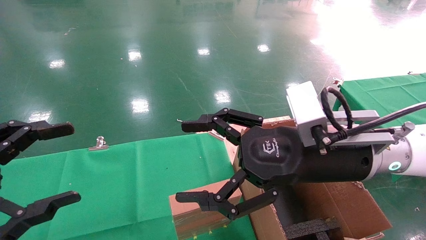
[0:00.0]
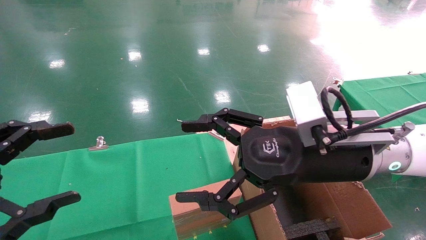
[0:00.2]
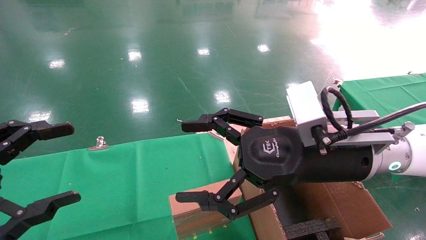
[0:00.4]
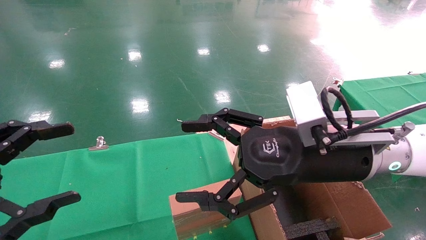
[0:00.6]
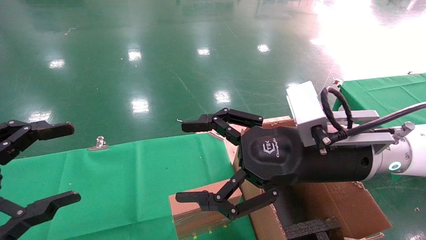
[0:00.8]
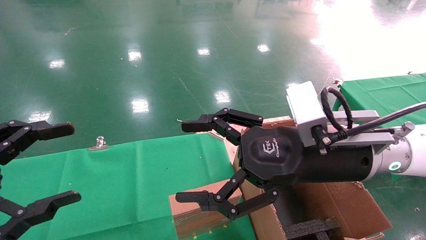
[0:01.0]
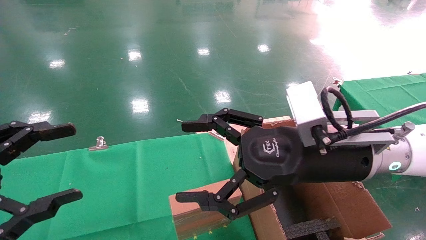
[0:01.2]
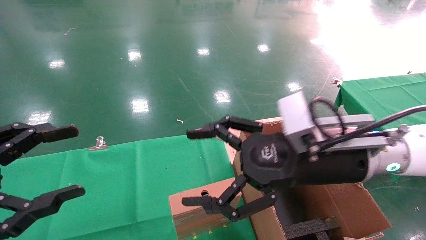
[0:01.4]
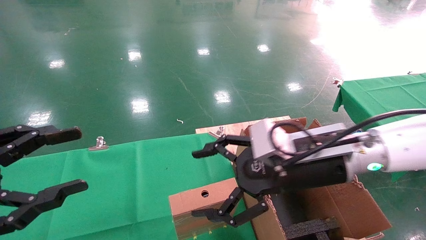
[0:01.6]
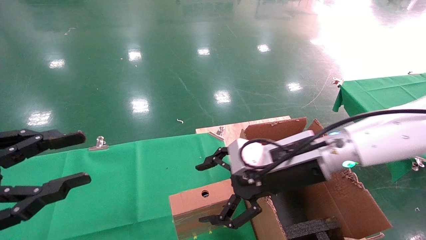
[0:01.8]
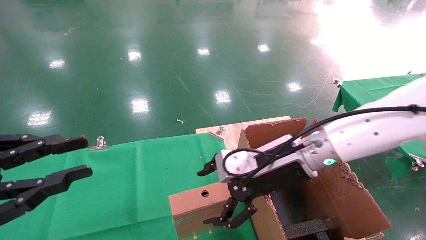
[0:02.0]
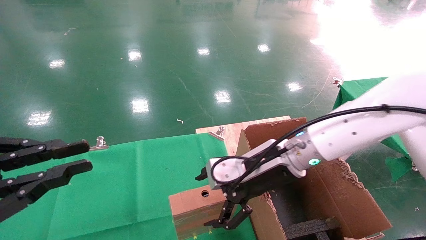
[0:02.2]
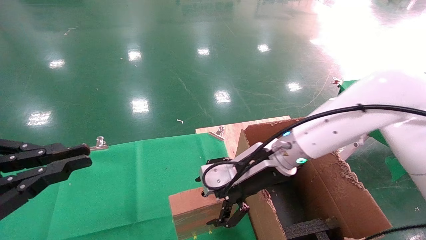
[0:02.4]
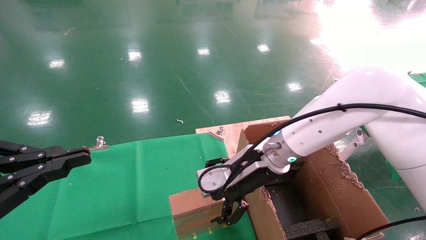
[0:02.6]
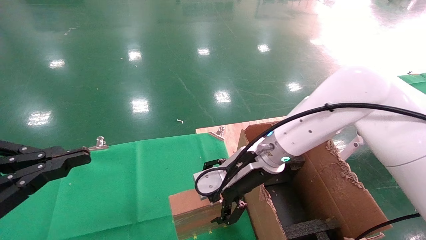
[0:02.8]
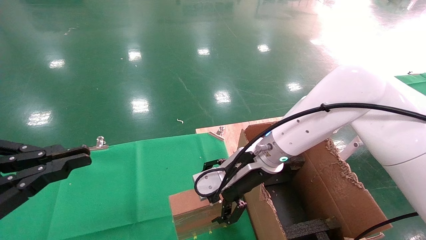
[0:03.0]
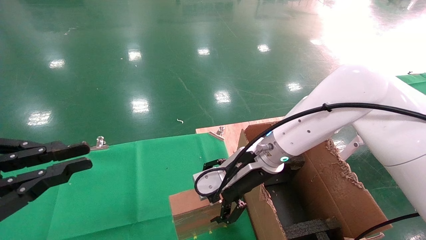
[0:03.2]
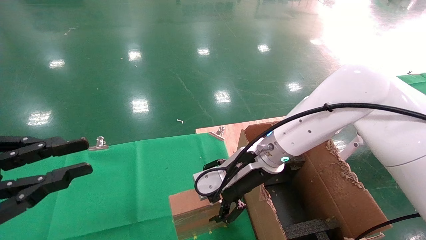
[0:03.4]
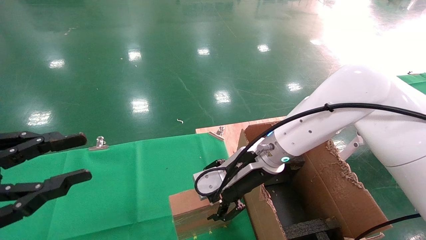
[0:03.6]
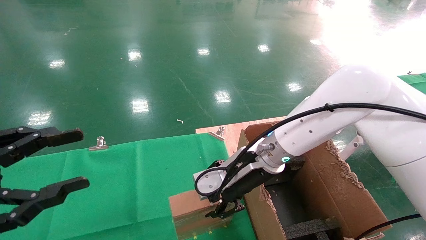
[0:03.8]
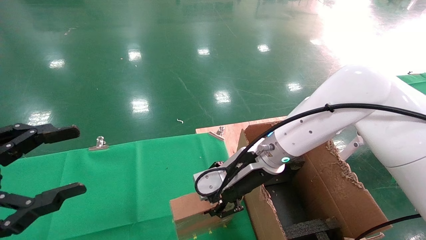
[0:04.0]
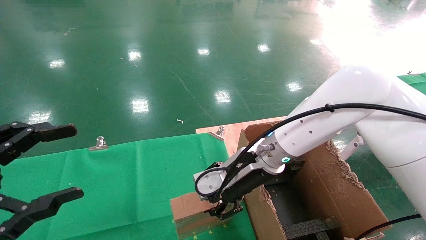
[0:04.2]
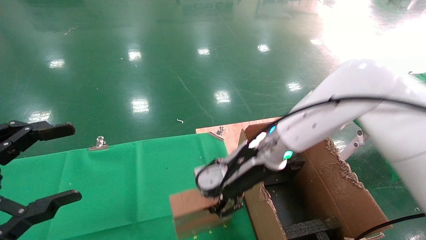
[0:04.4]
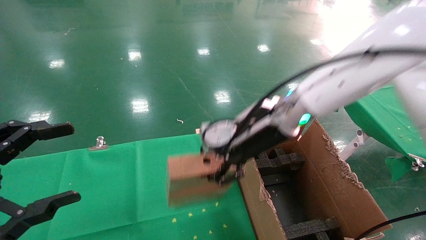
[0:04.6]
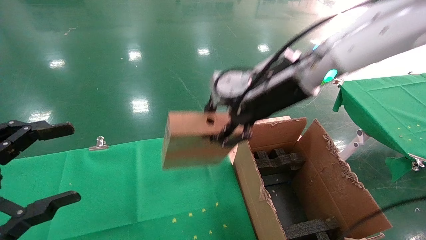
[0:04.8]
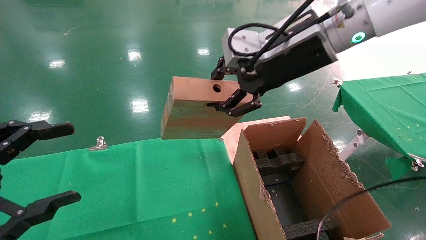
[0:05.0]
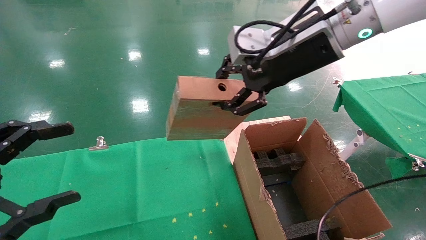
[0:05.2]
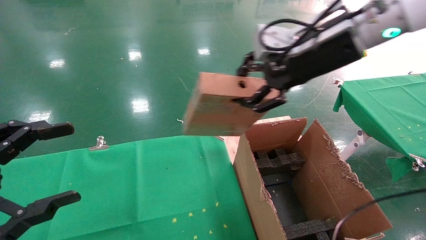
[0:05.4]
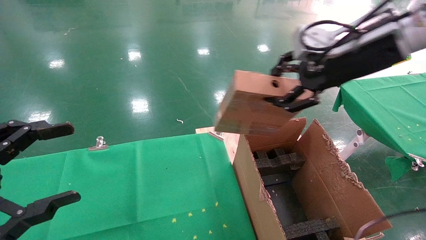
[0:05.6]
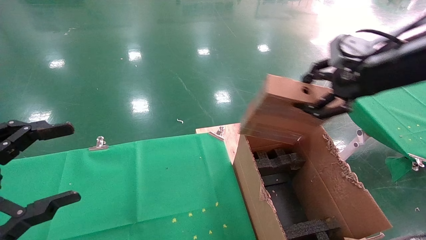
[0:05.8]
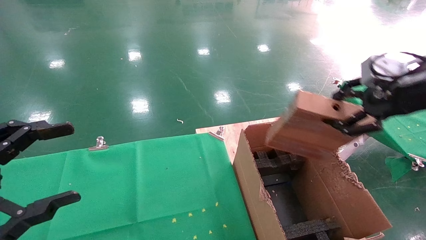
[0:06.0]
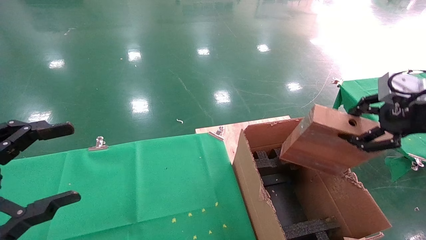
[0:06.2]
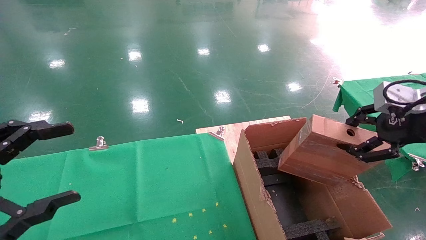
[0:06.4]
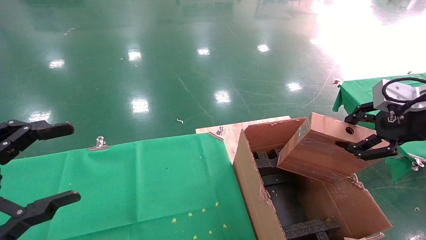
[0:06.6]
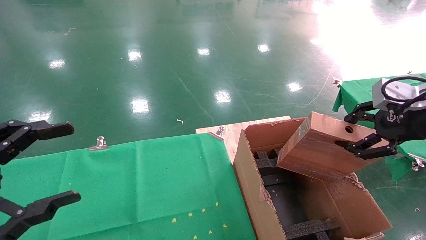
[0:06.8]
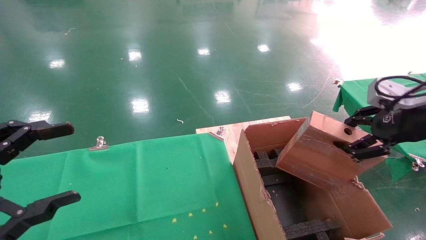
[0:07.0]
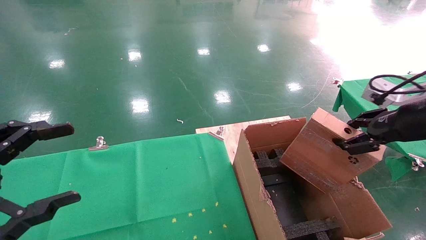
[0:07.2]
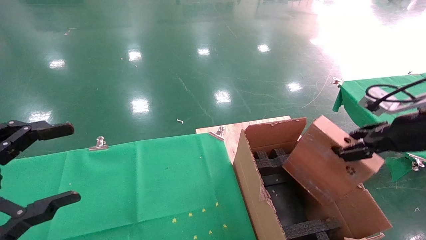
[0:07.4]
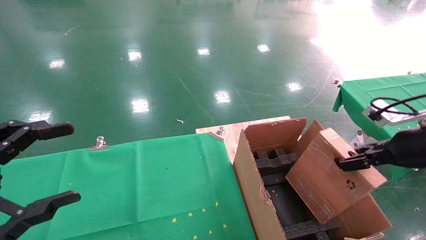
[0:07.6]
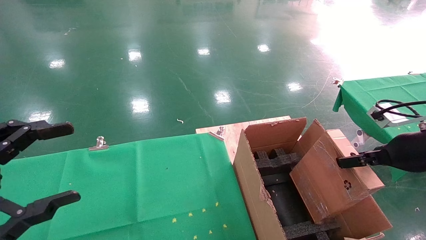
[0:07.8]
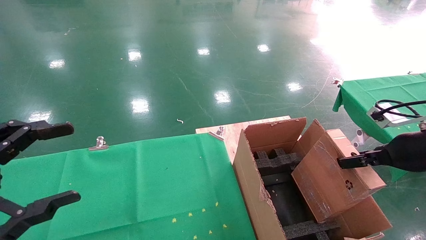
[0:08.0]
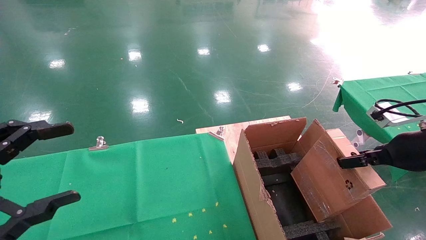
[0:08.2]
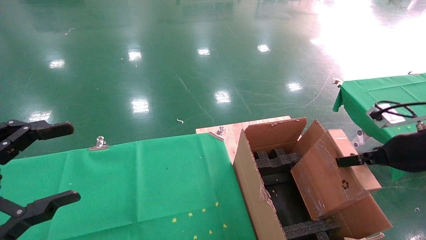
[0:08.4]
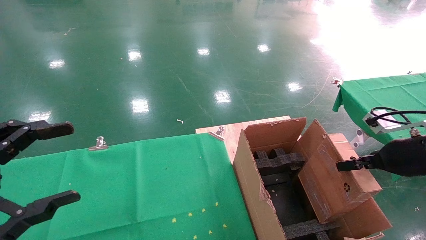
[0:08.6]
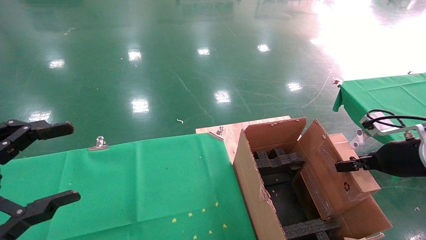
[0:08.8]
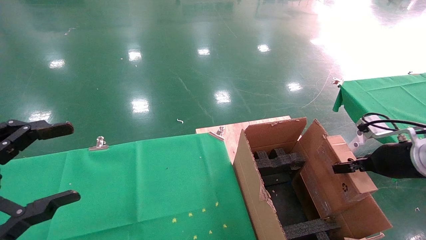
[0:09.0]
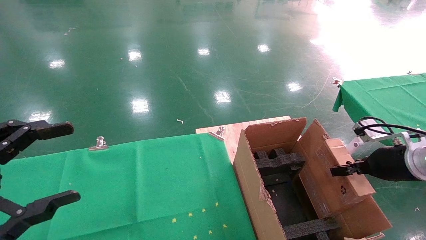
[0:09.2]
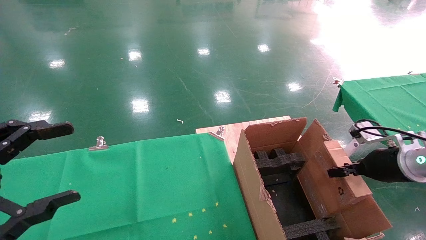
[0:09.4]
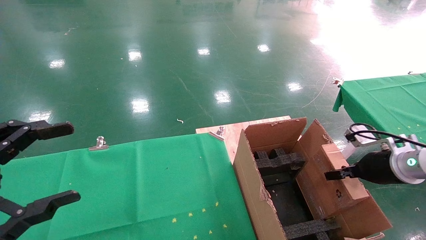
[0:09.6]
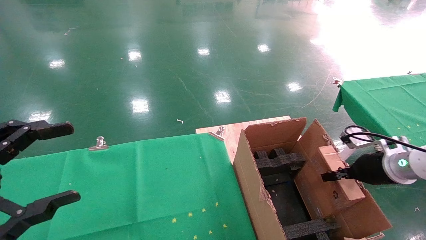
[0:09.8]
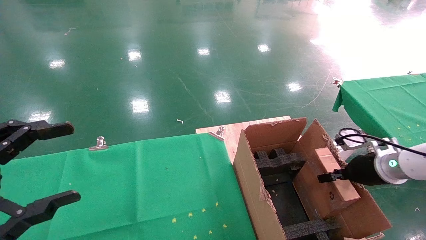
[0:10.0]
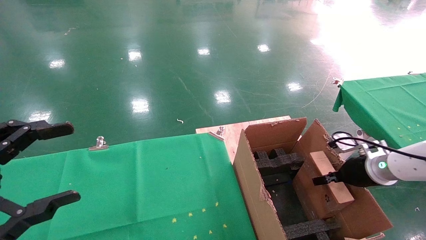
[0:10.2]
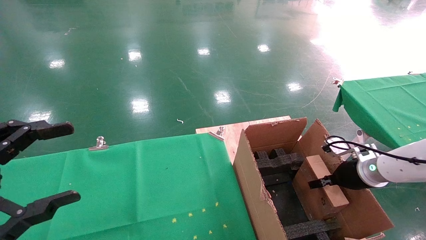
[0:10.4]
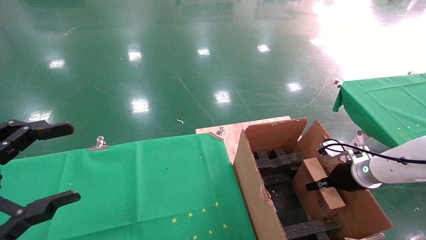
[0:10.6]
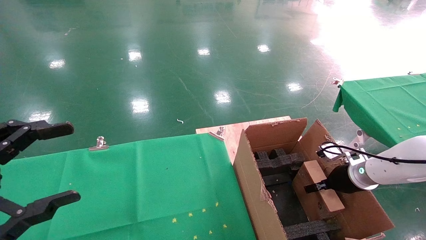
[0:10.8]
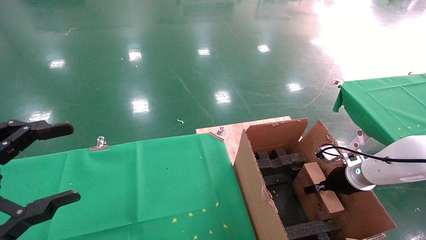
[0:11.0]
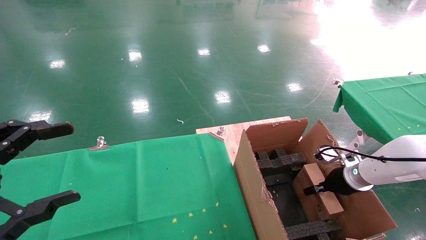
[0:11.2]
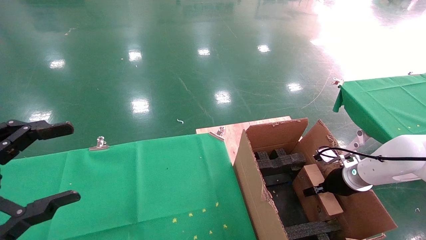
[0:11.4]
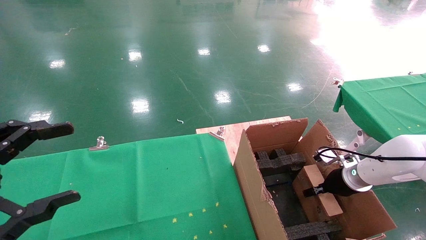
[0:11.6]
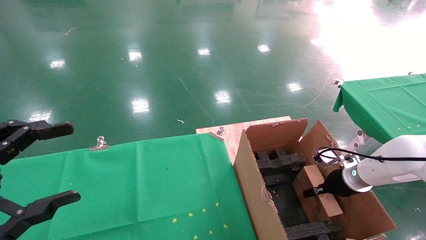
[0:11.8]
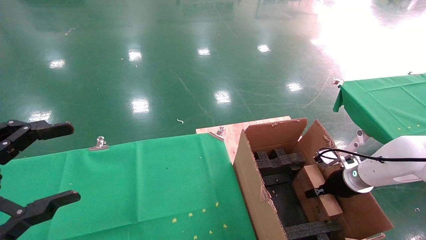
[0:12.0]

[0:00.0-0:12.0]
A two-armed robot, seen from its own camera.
Task of the whole recording: using a robotic arm to pick up a cardboard box and palace it the carton.
Step, 0:01.4 to 0:04.4: Pick up the mouse and the power cord paper box.
0:01.6 to 0:03.0: The right gripper heads forward and to the left, covering about 10 cm; the left gripper closes its fingers.
0:03.0 to 0:04.4: The right gripper closes up; the left gripper opens.
0:04.4 to 0:06.0: The right gripper shifts about 30 cm to the right and upward.
0:06.0 to 0:07.6: The right gripper moves downward, approximately 10 cm.
0:07.6 to 0:09.0: The right gripper travels downward by some 5 cm.
0:09.0 to 0:10.4: The right gripper shifts roughly 10 cm downward and forward.
0:10.4 to 0:12.0: The right gripper shifts by approximately 5 cm.

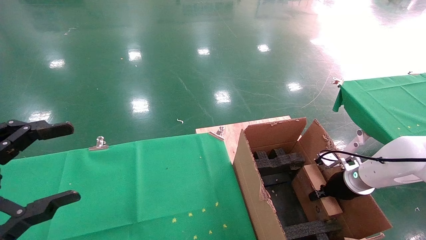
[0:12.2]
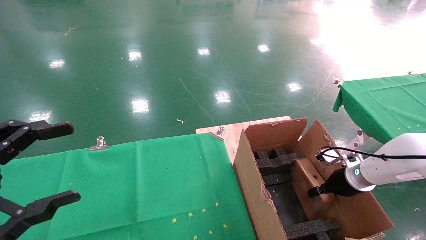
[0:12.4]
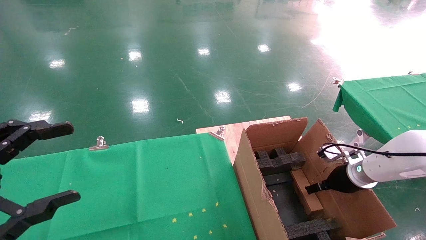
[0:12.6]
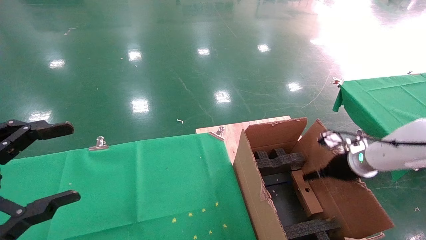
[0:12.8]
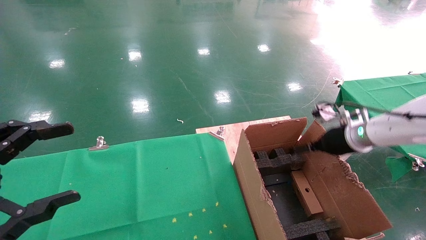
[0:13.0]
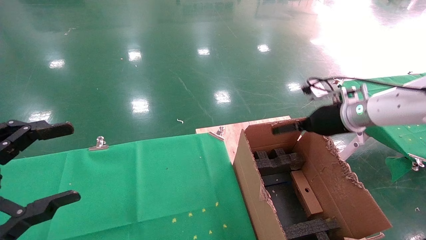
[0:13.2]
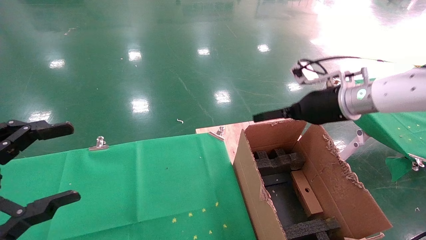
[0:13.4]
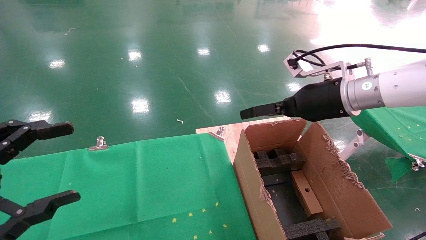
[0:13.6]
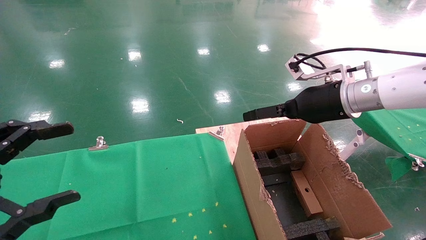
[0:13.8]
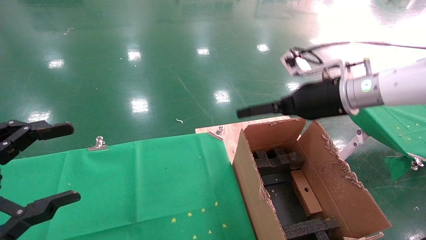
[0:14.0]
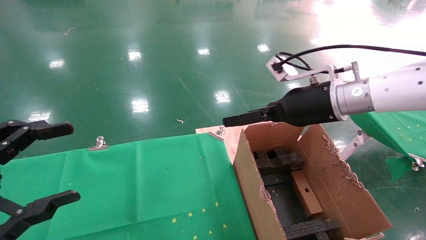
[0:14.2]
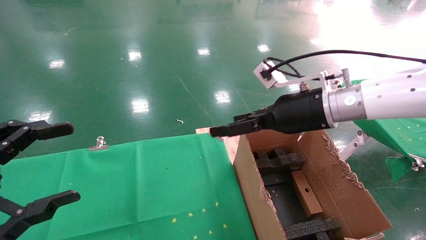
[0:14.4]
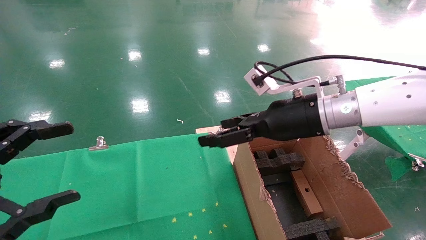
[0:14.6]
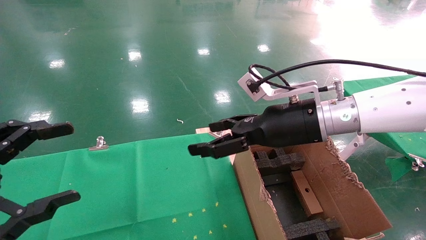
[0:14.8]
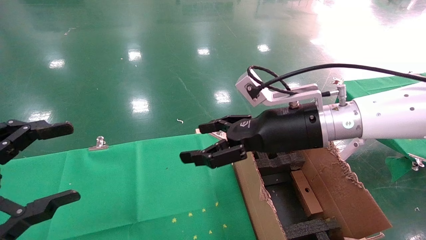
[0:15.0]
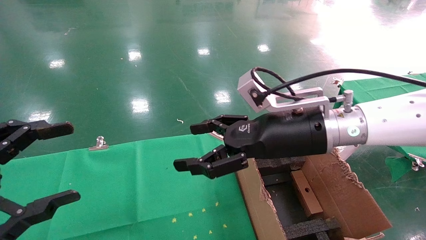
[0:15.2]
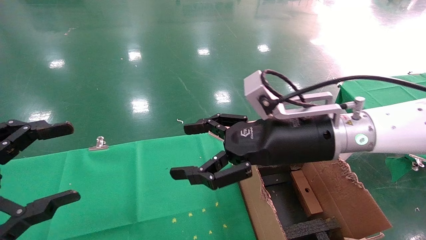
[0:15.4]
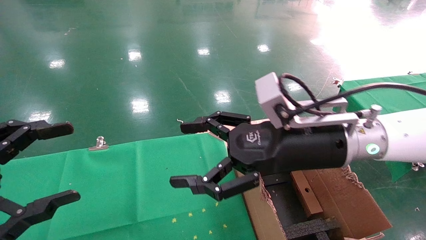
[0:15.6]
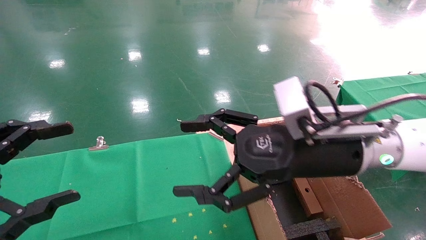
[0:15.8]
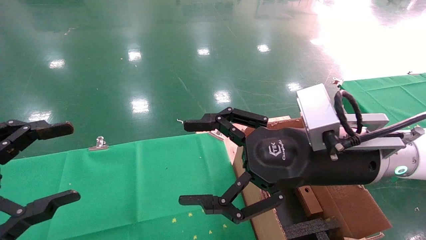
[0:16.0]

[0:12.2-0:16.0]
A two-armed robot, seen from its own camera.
Task of the whole recording: using a robotic arm to pick up a cardboard box and palace it the carton.
0:12.2 to 0:13.4: The right gripper moves upward and to the left, about 25 cm, and opens.
0:13.4 to 0:14.8: The right gripper is displaced to the left and backward by approximately 10 cm.
0:14.8 to 0:16.0: The right gripper shifts some 10 cm backward.

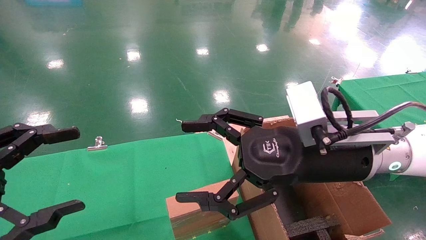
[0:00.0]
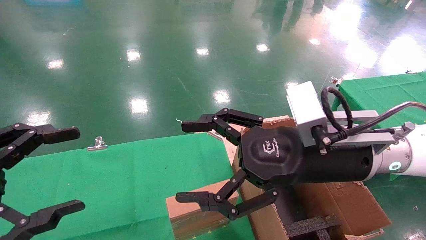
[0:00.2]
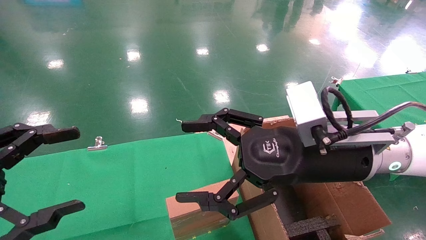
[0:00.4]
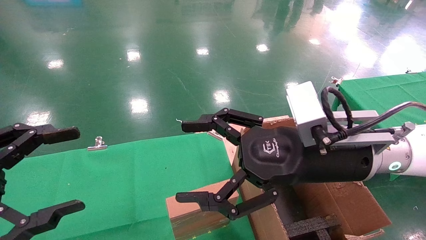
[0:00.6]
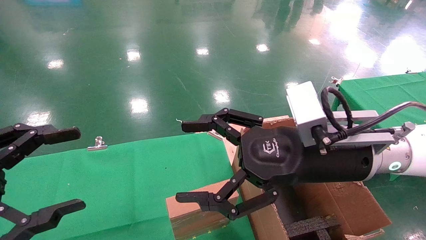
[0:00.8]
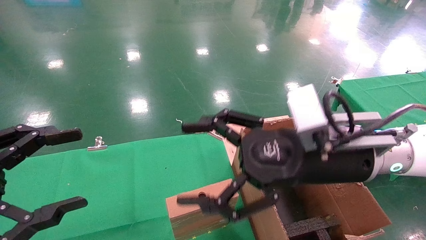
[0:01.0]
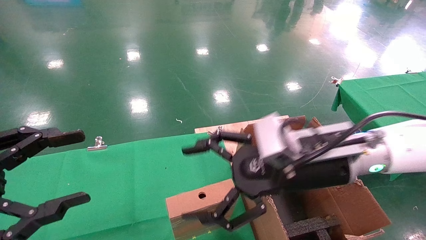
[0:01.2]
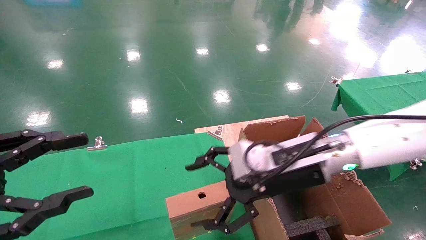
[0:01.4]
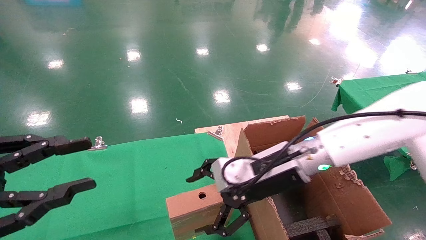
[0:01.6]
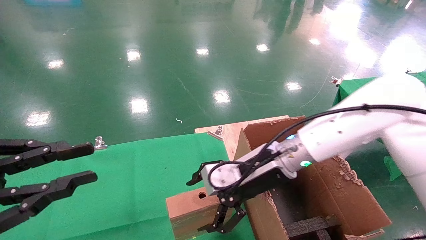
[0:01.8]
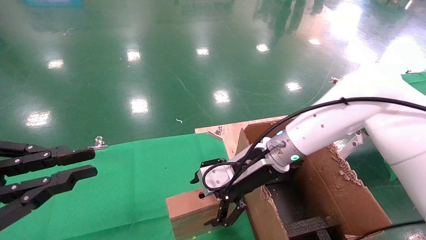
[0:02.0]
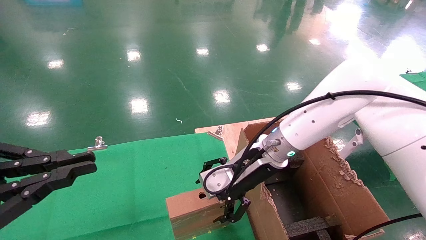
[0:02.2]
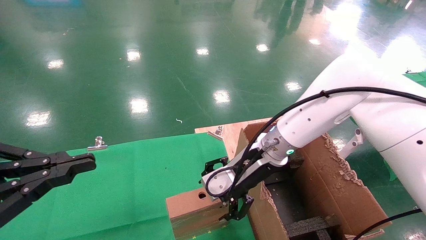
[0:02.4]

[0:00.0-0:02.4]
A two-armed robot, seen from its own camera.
Task of the whole recording: using a robotic arm to pick up a cardboard box and palace it the carton.
0:00.0 to 0:01.2: The grippers make only small movements.
0:01.2 to 0:02.4: The right gripper moves forward, roughly 10 cm; the left gripper closes up.
